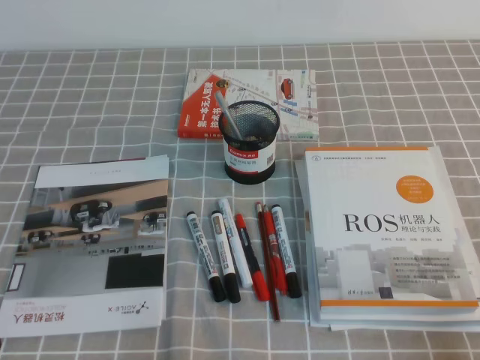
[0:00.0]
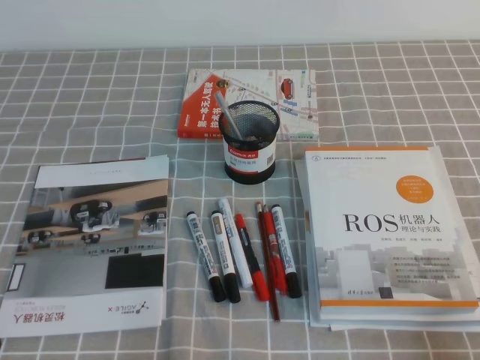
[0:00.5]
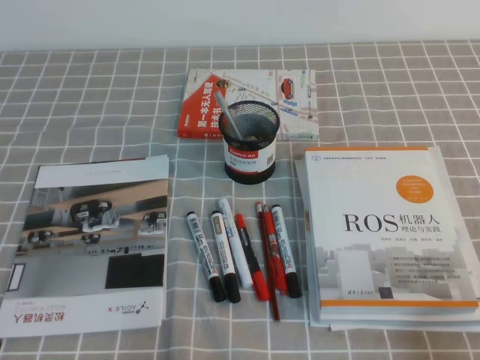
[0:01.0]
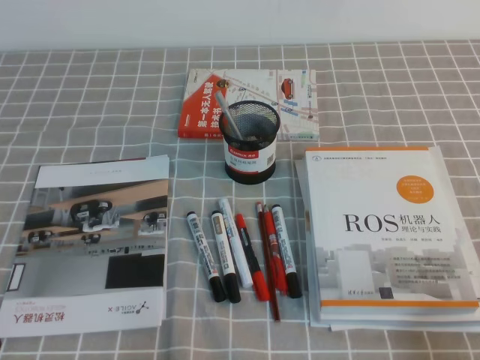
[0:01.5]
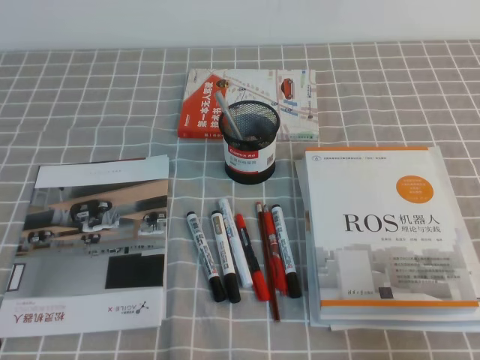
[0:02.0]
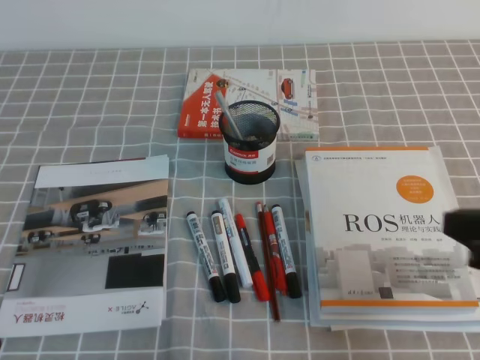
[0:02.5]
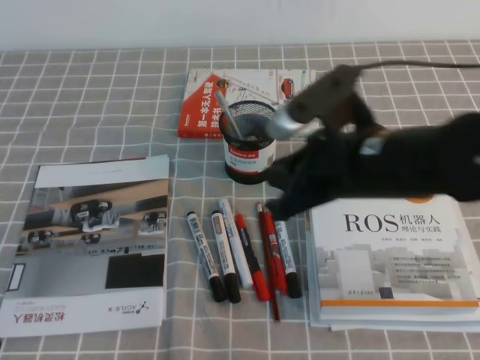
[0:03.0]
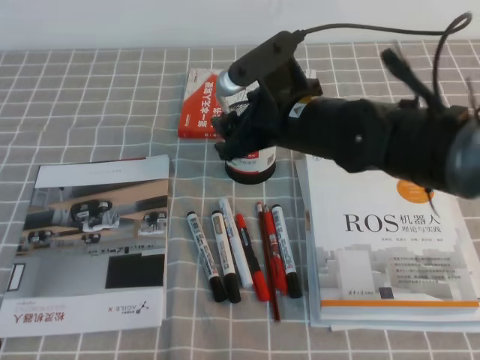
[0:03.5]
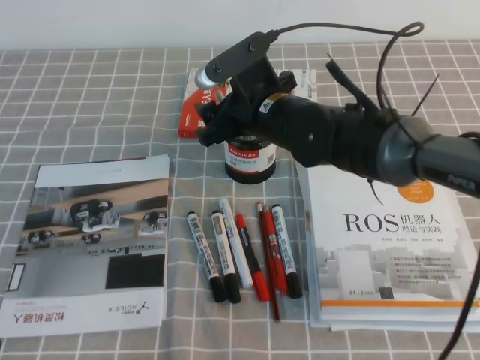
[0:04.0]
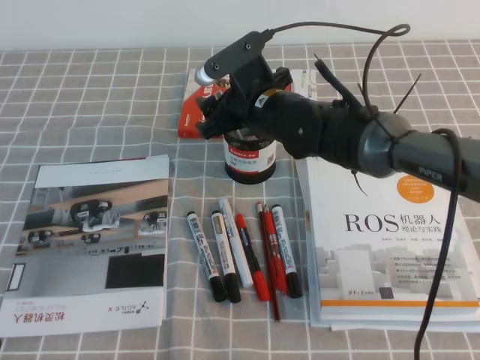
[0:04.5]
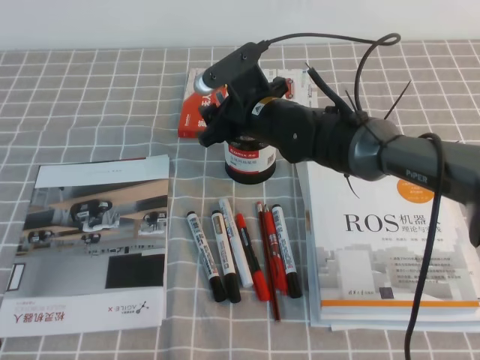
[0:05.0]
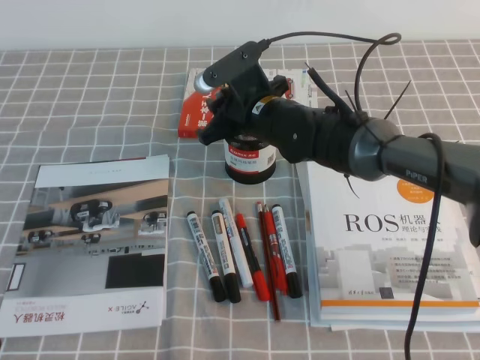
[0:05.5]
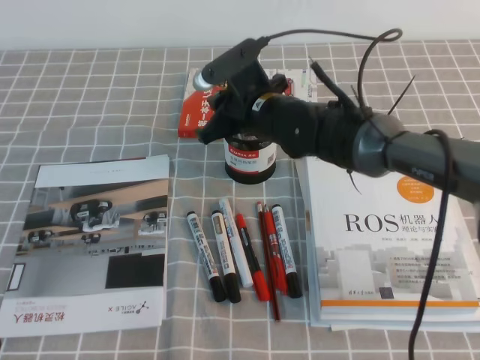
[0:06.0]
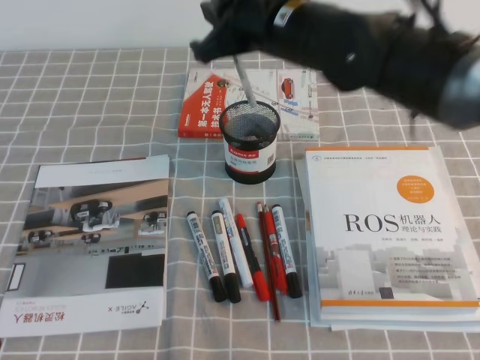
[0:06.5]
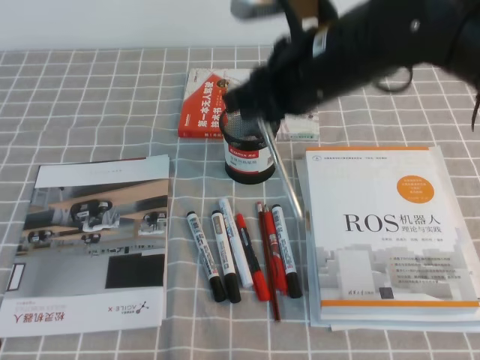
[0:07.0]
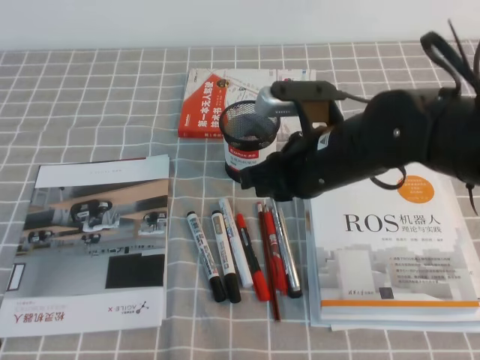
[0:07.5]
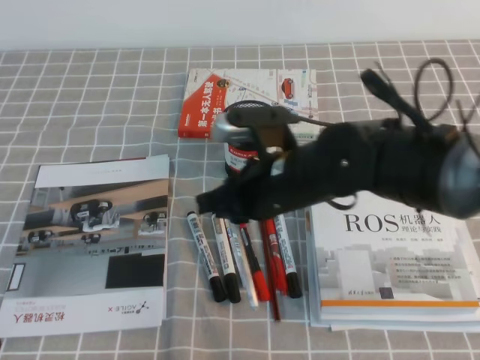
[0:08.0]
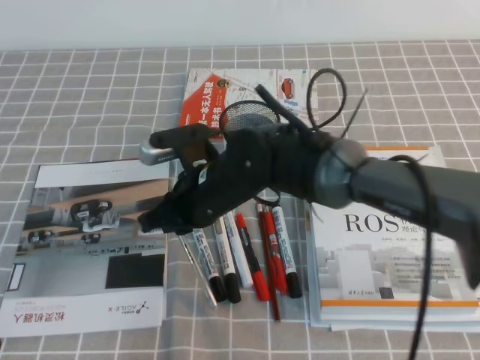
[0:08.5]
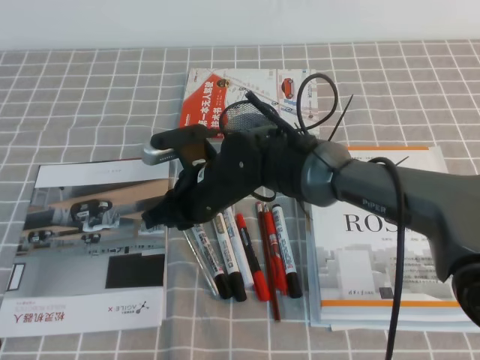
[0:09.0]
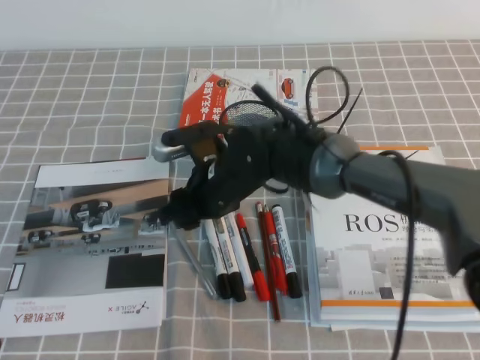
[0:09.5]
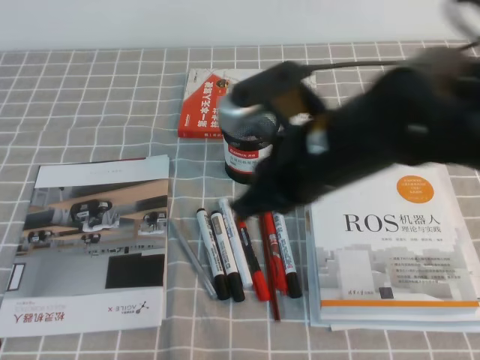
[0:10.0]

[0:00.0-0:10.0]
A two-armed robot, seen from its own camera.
0:00.0 to 0:02.0: The right gripper heads upward, covering approximately 10 cm.
0:02.0 to 0:04.0: The right gripper goes roughly 40 cm forward and to the left, and opens up.
0:04.0 to 0:06.0: The right gripper closes.
0:06.0 to 0:08.0: The right gripper goes some 10 cm backward, and goes upward and returns, roughly 10 cm each way.
0:08.0 to 0:10.0: The right gripper goes roughly 5 cm upward, and opens, then closes again.

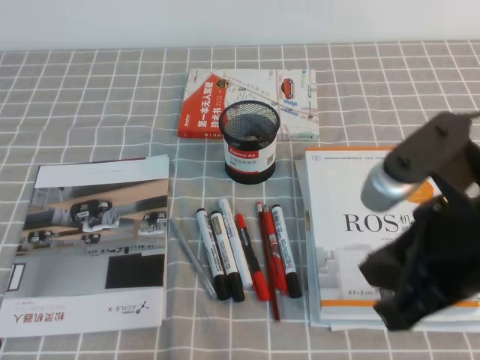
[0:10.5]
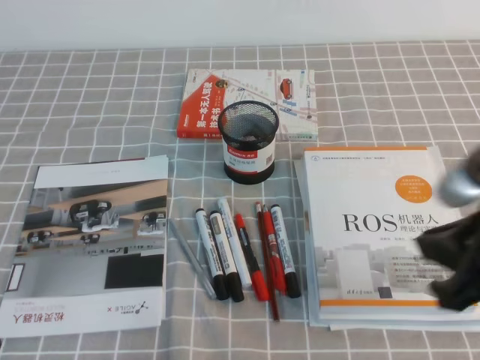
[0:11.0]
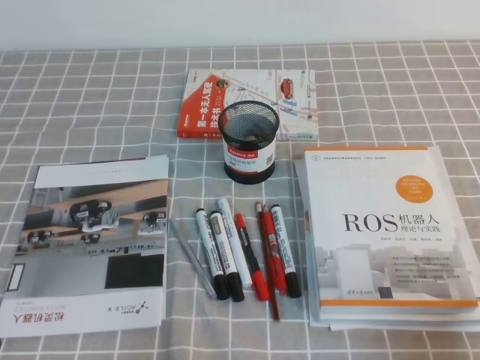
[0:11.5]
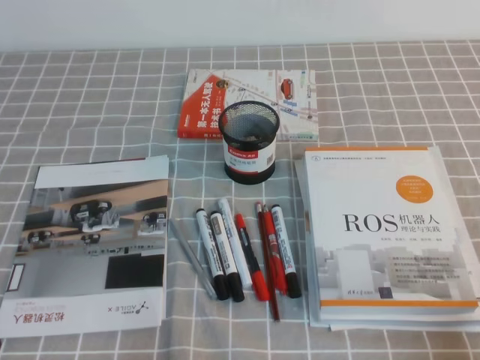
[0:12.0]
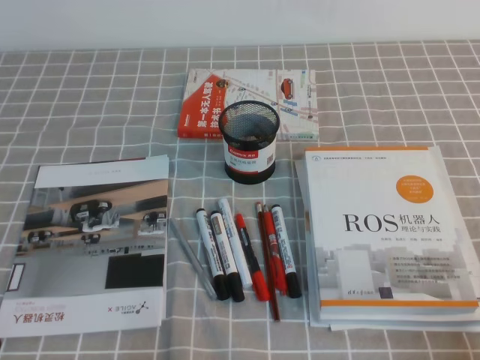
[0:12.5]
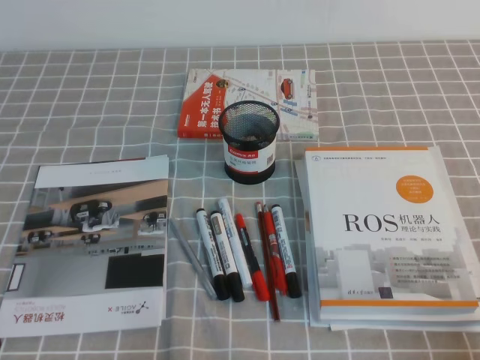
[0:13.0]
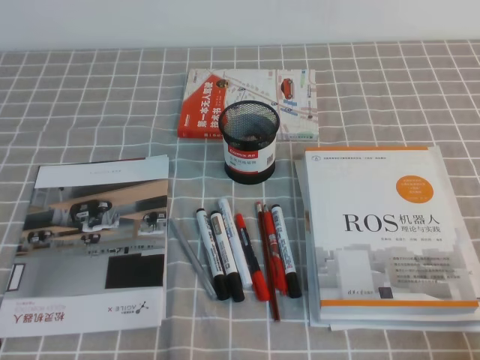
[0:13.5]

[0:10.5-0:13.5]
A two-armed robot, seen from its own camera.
Step, 0:10.5 to 0:13.5: Pick up the pen from the pen holder.
0:10.5 to 0:12.0: The right gripper shifts about 25 cm downward, to the right and backward.

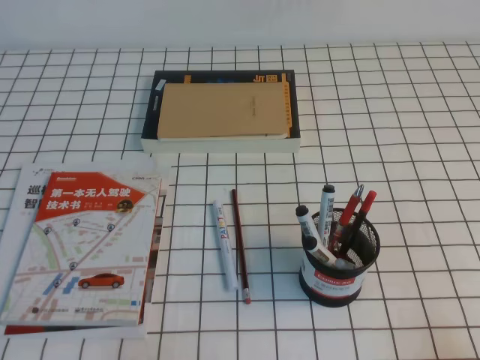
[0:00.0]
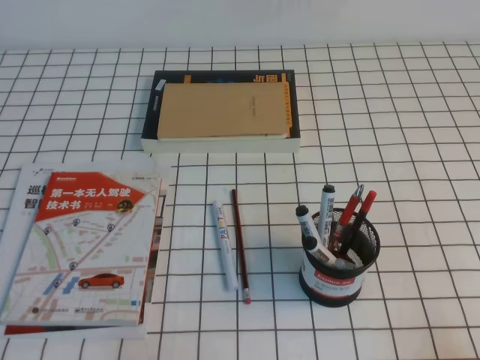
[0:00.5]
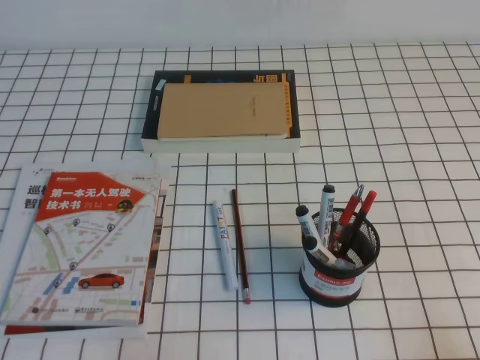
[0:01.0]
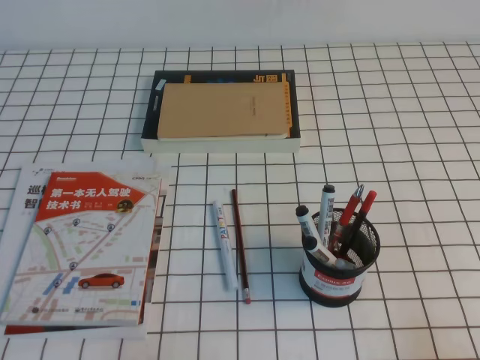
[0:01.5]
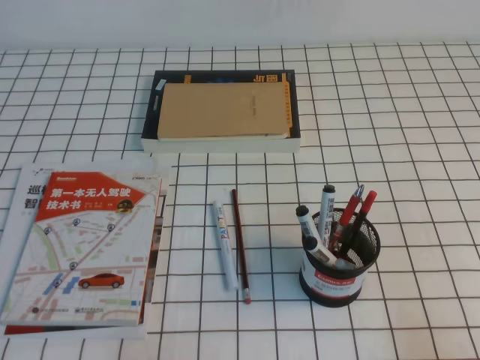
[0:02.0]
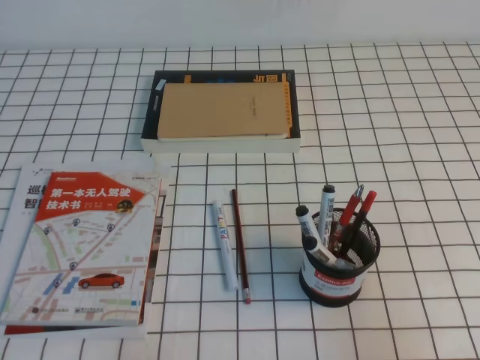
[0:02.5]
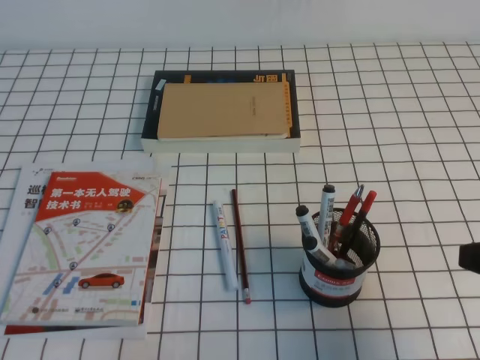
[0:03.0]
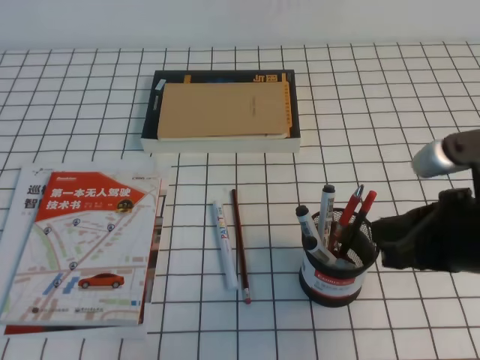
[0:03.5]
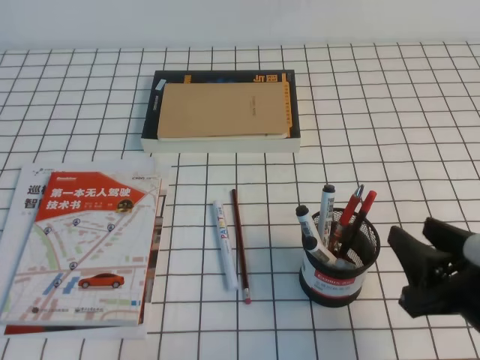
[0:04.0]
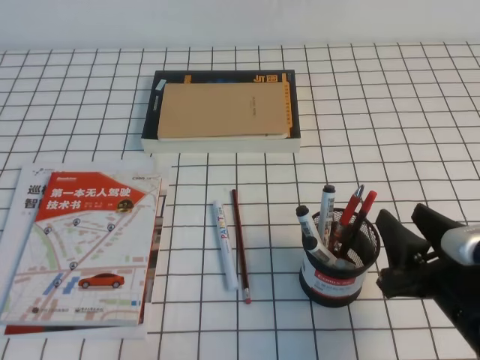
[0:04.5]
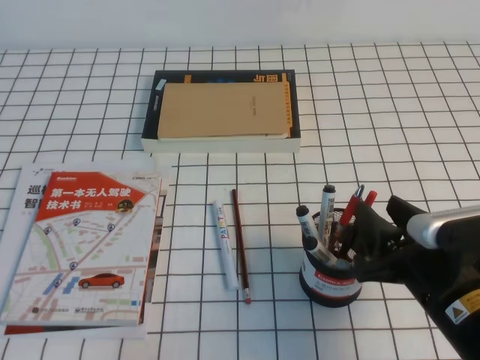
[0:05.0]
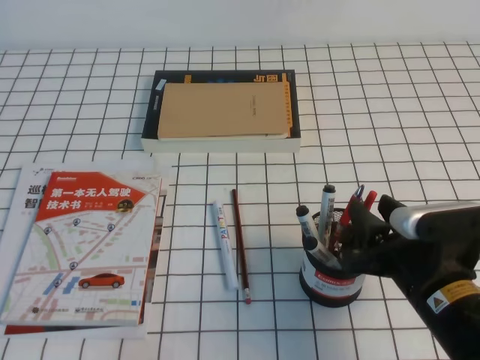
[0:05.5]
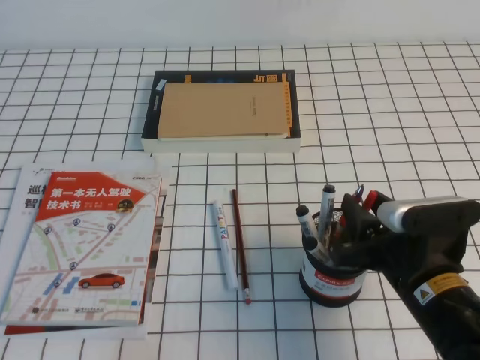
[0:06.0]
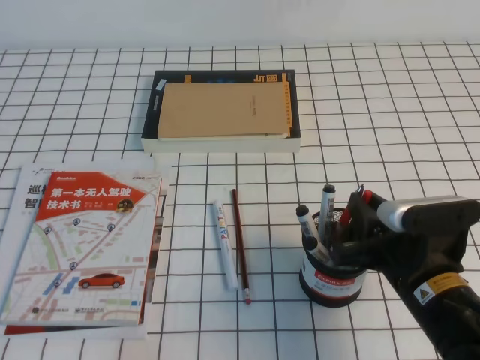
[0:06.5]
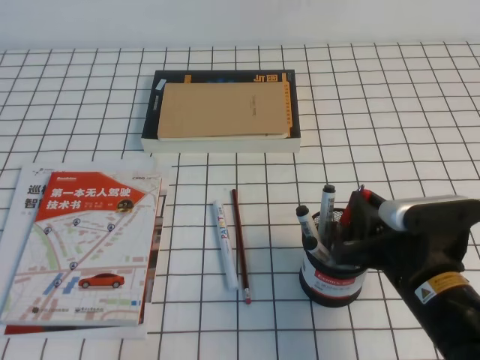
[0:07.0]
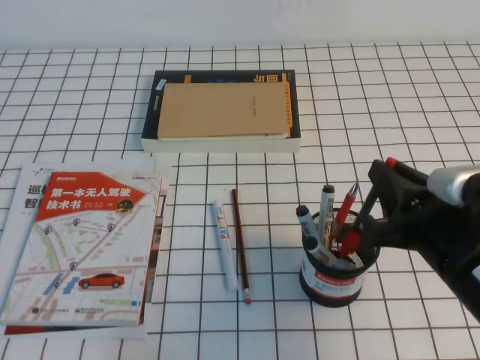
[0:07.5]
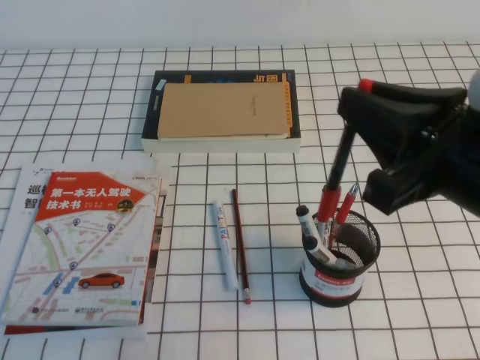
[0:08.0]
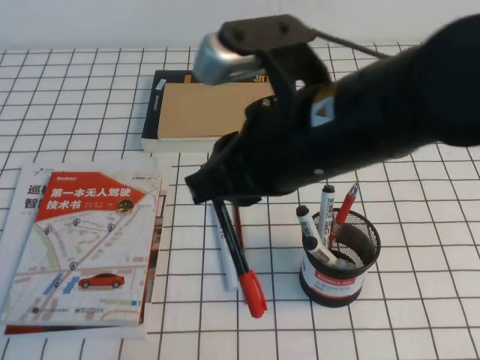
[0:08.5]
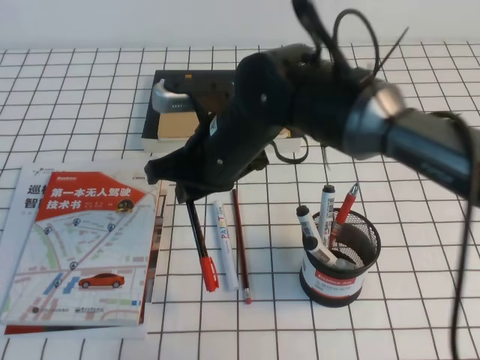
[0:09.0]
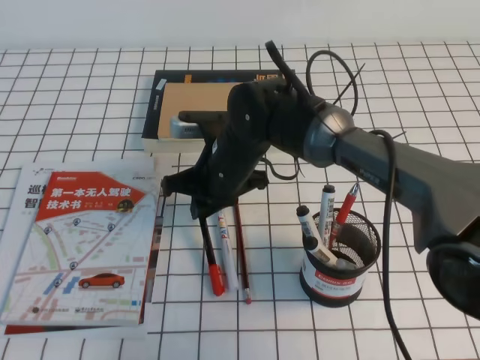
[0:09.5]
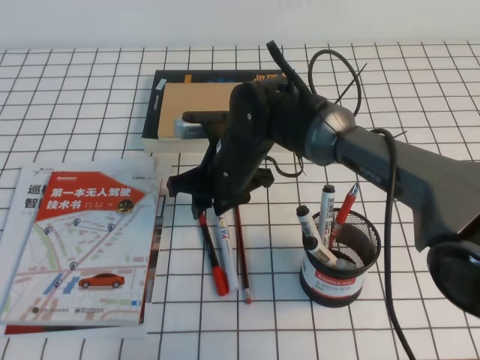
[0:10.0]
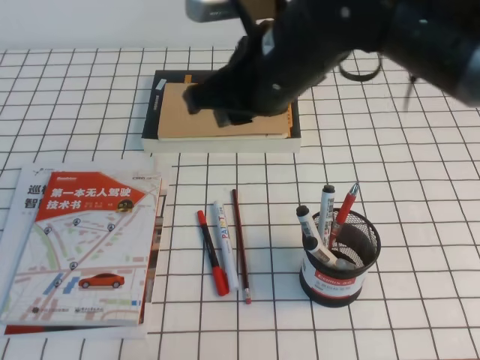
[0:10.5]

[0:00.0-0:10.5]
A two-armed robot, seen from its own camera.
0:02.0 to 0:04.0: The right gripper travels to the left and forward by about 15 cm, and opens its fingers.
0:04.0 to 0:06.5: The right gripper moves forward, about 5 cm, and closes its fingers.
0:06.5 to 0:08.5: The right gripper heads upward and to the left, covering approximately 25 cm.
0:08.5 to 0:10.5: The right gripper goes about 10 cm forward, and moves approximately 20 cm downward and comes back.

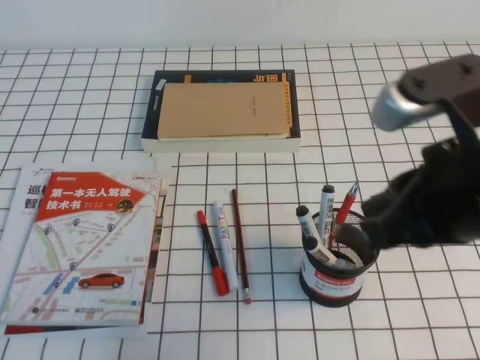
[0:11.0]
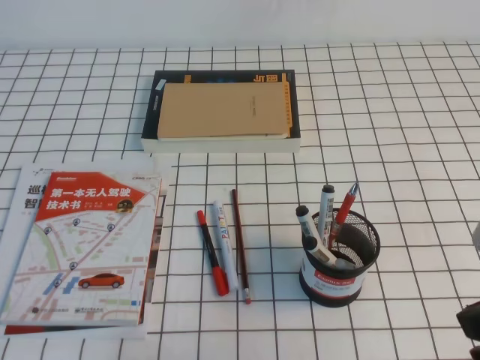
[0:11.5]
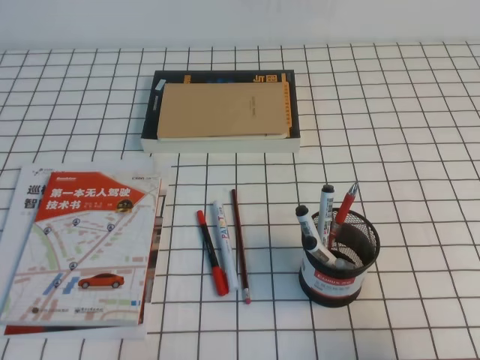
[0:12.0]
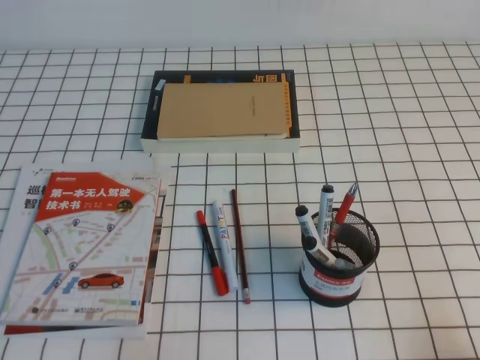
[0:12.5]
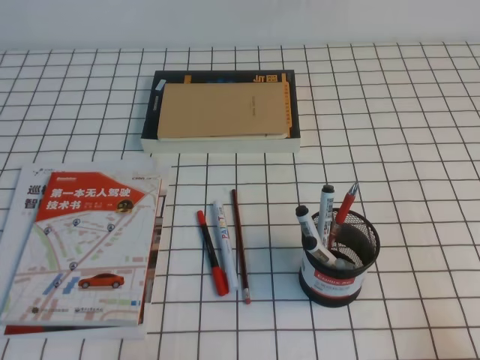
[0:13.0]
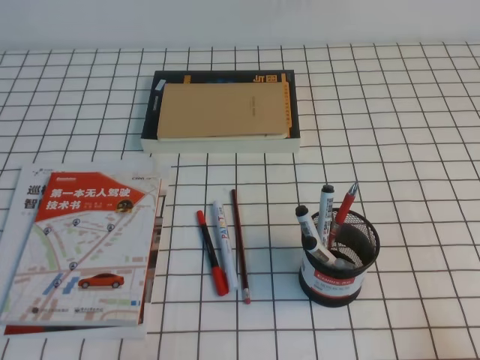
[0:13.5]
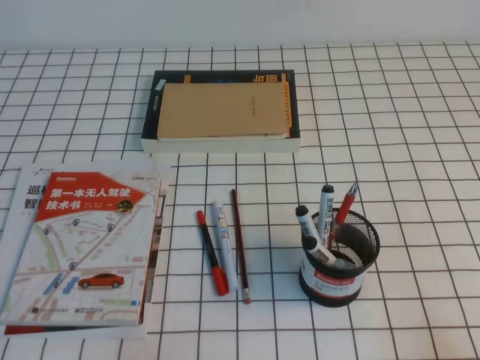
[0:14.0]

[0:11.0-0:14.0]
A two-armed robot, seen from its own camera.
Step, 0:11.0 to 0:14.0: Pick up the pen from the pen holder.
0:11.0 to 0:12.5: The right gripper is displaced downward, to the right and backward by approximately 25 cm.
